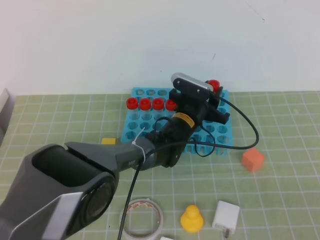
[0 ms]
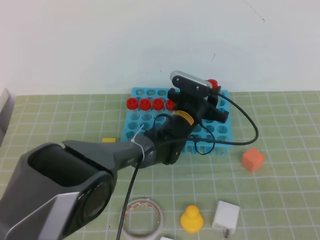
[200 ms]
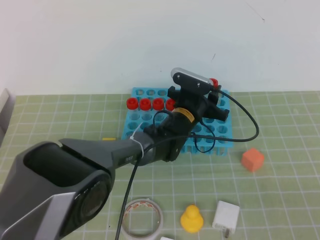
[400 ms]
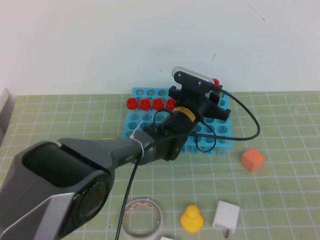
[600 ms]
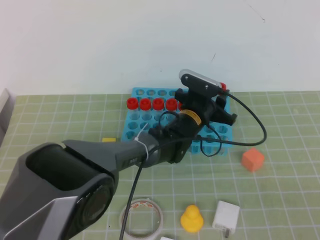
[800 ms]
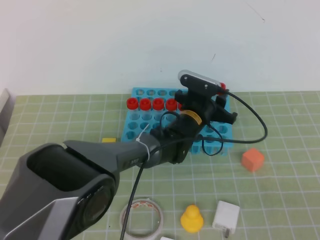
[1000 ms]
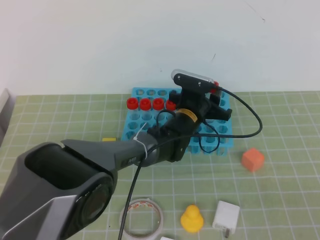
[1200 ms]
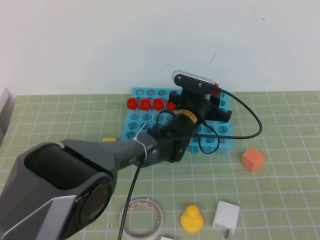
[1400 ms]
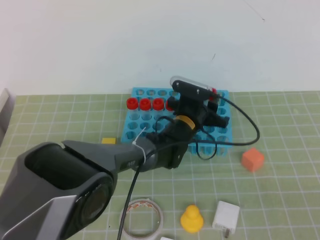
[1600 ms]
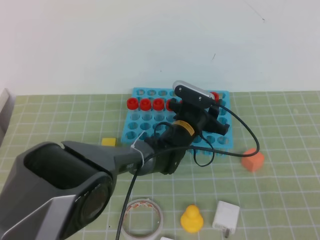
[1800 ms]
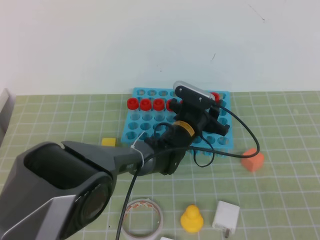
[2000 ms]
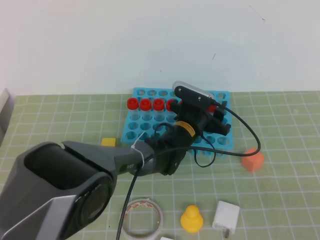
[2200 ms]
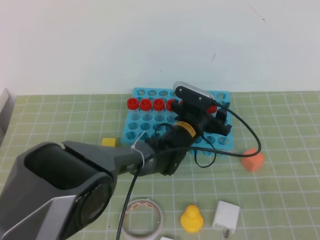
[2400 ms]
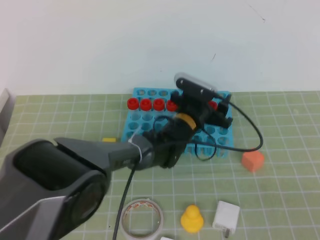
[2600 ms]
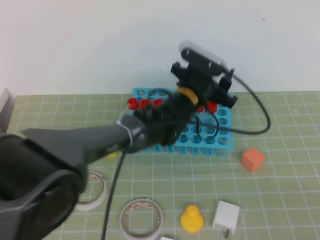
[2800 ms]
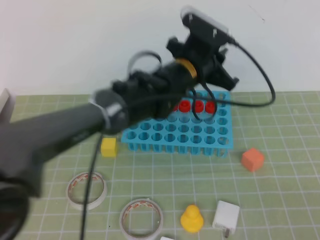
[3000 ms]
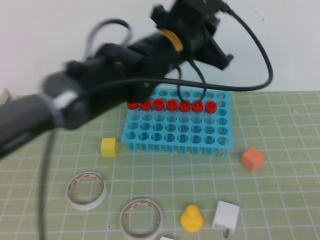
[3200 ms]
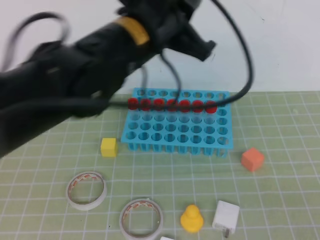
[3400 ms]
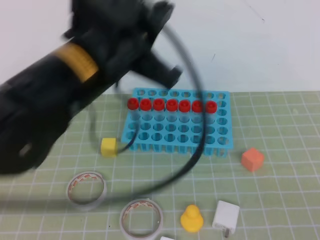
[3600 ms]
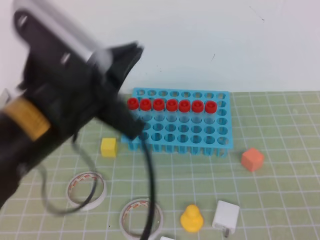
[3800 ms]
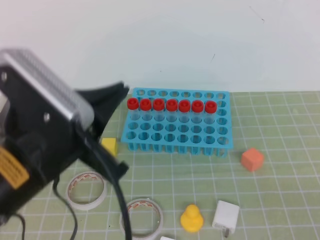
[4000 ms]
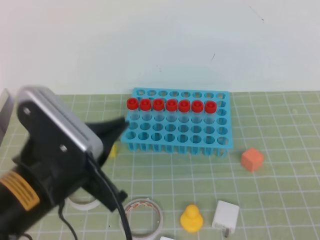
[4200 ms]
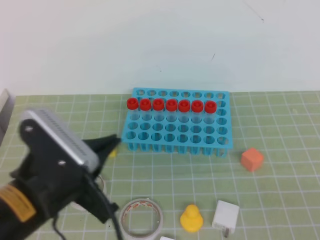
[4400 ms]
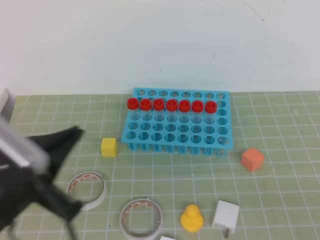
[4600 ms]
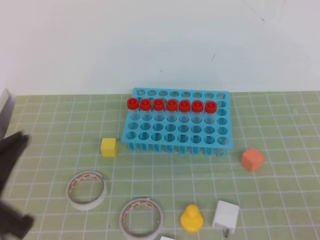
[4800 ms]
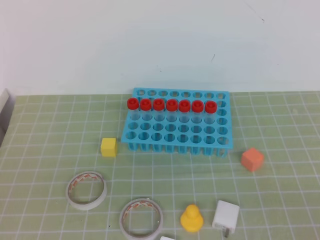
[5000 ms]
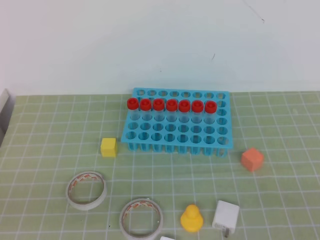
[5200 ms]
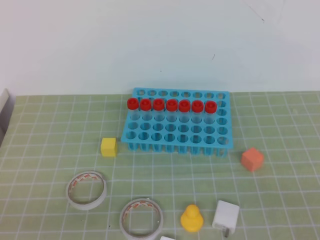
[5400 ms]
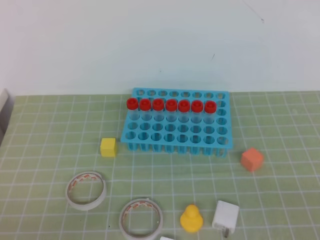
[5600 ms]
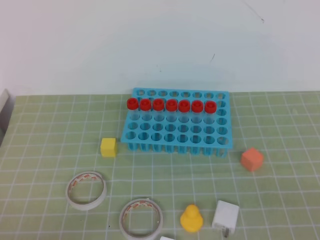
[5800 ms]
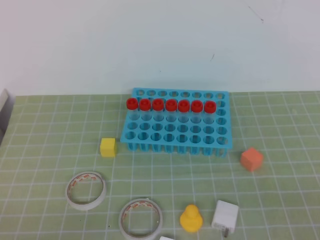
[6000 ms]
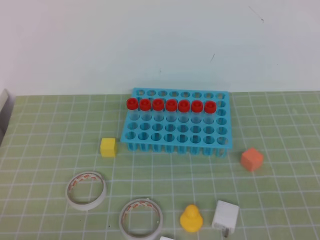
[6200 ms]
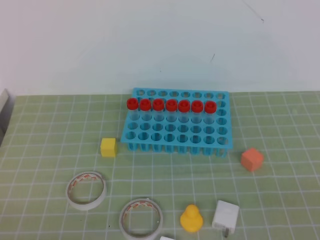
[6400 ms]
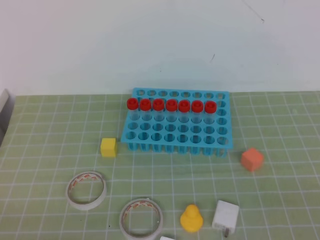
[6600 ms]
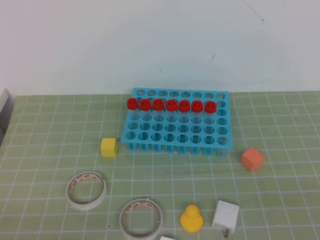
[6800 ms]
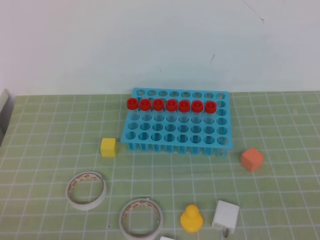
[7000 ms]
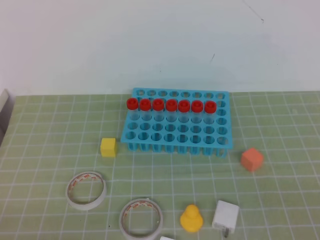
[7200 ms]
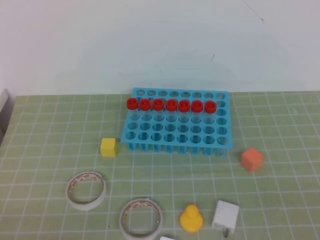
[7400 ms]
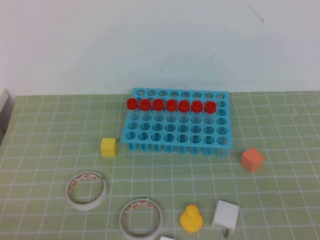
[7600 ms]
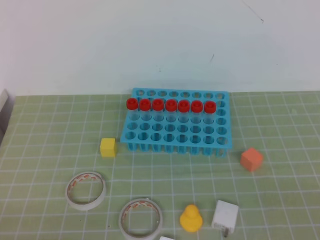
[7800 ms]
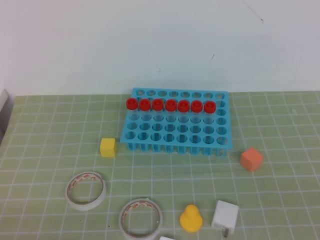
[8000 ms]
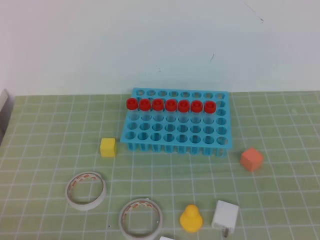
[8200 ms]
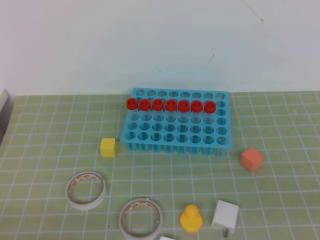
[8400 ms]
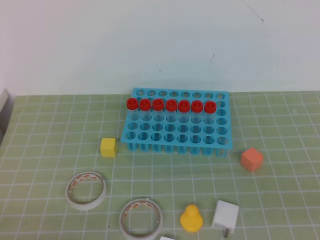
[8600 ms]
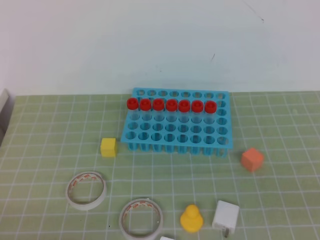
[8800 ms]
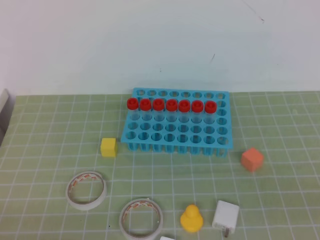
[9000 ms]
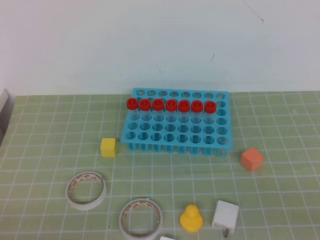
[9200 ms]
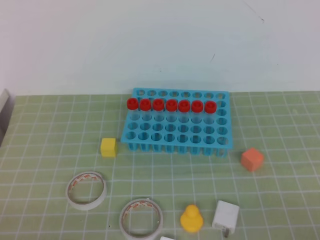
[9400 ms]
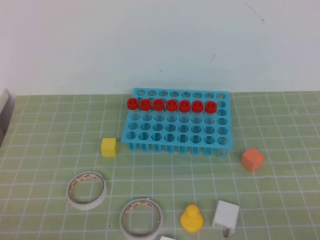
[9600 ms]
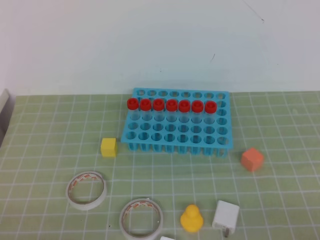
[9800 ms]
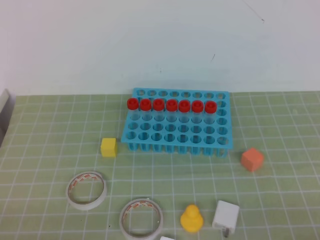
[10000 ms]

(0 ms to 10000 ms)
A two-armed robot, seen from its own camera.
0 ms - 1400 ms: The grippers make only small movements.
1400 ms - 2800 ms: The left gripper shifts approximately 5 cm upward.
2800 ms - 4200 ms: The left gripper heads backward, to the left and upward, covering approximately 35 cm, and closes up.
4200 ms - 5800 ms: The left gripper is displaced downward, to the left and backward by some 20 cm.

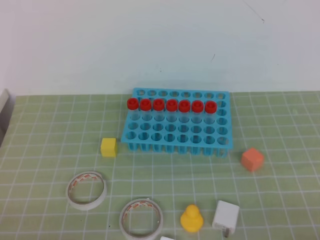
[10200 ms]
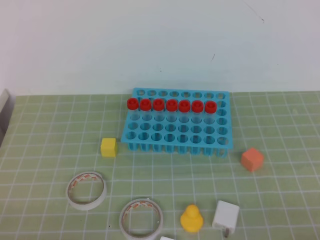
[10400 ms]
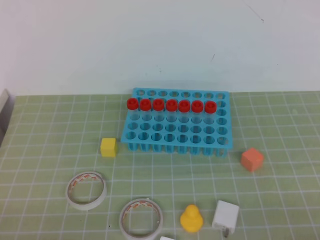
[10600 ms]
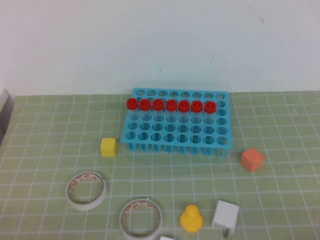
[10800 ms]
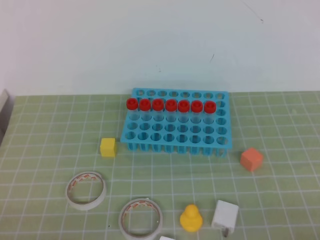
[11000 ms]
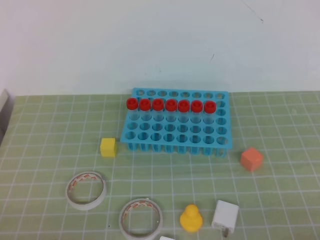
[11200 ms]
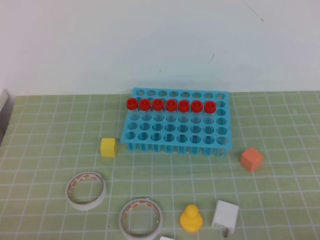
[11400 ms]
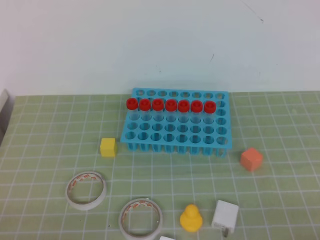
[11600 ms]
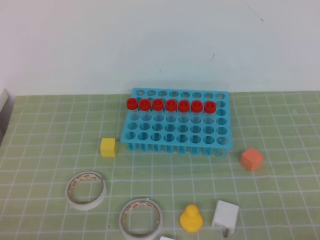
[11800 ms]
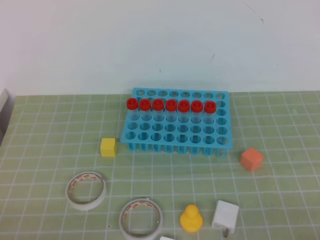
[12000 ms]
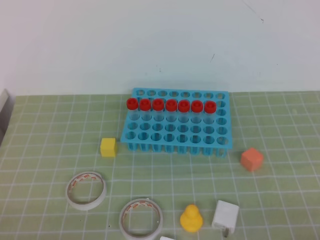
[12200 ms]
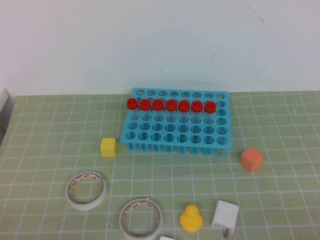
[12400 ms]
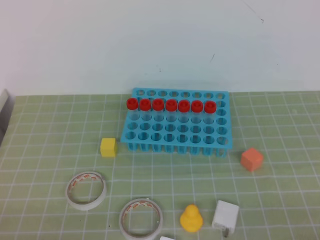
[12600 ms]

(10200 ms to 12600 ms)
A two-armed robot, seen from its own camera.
10200 ms - 12600 ms: Neither gripper changes place.
